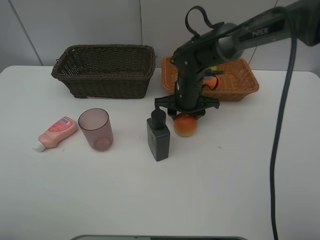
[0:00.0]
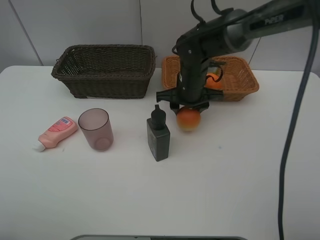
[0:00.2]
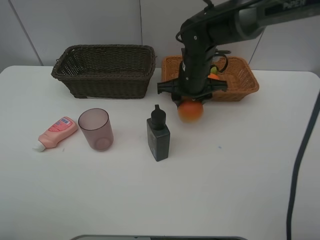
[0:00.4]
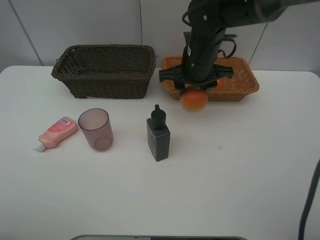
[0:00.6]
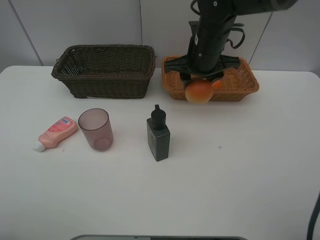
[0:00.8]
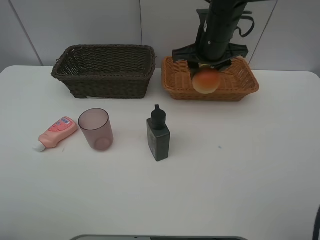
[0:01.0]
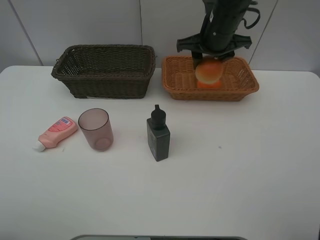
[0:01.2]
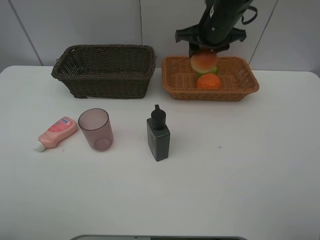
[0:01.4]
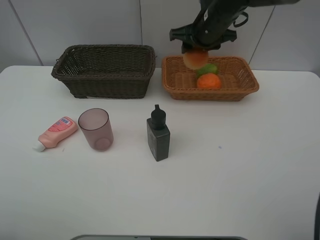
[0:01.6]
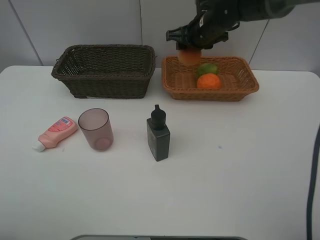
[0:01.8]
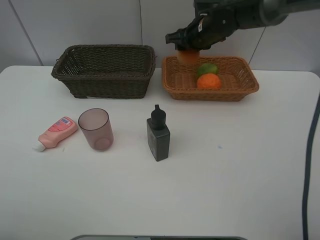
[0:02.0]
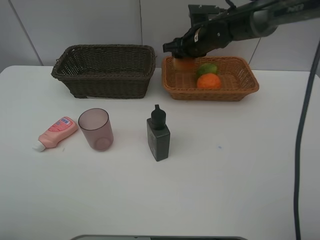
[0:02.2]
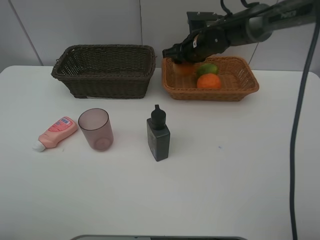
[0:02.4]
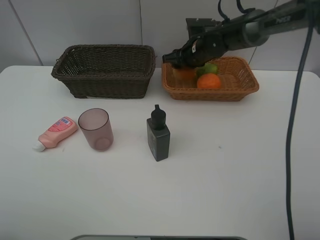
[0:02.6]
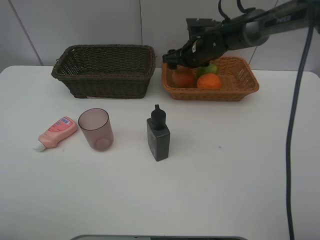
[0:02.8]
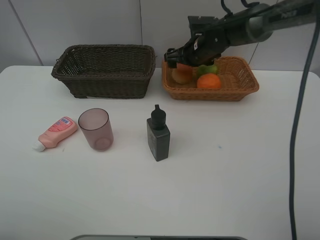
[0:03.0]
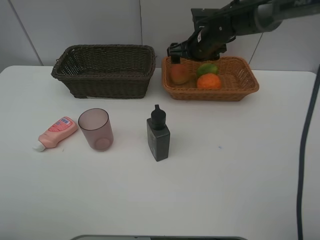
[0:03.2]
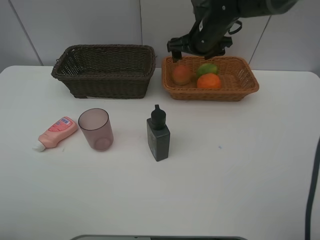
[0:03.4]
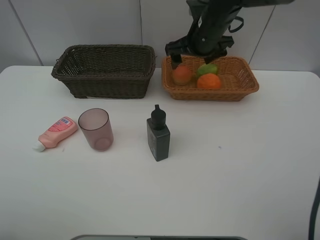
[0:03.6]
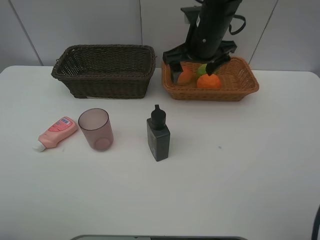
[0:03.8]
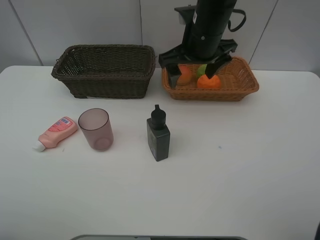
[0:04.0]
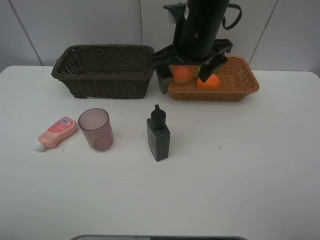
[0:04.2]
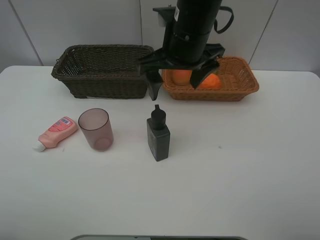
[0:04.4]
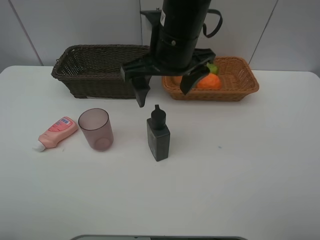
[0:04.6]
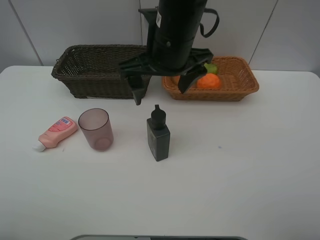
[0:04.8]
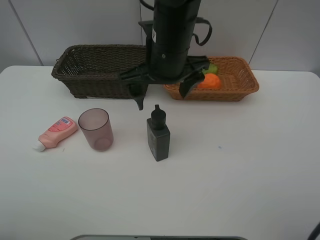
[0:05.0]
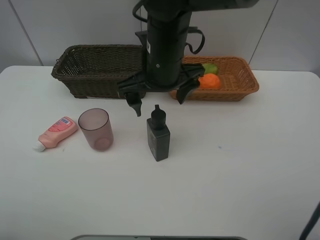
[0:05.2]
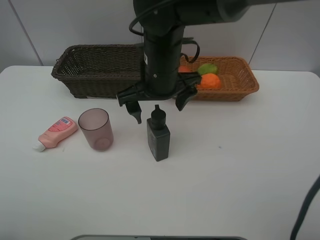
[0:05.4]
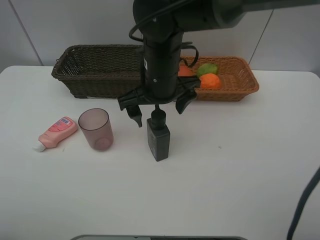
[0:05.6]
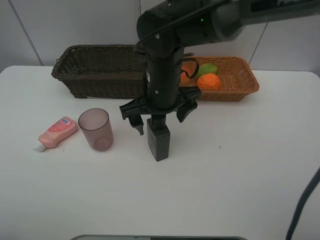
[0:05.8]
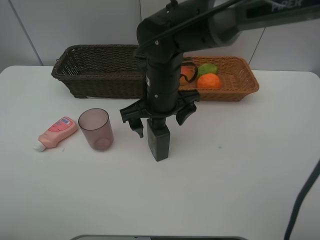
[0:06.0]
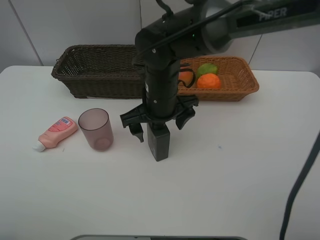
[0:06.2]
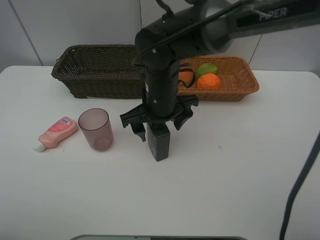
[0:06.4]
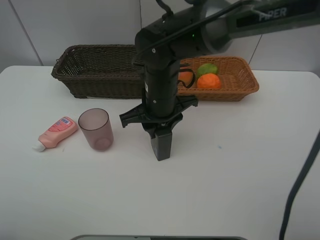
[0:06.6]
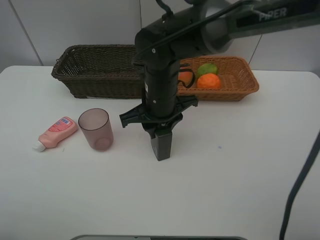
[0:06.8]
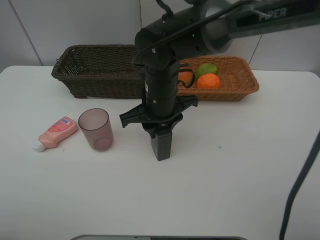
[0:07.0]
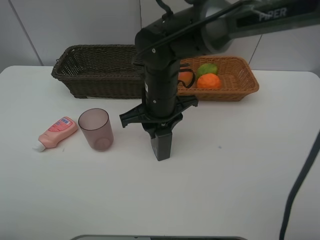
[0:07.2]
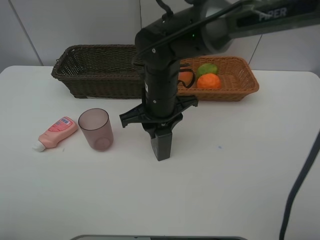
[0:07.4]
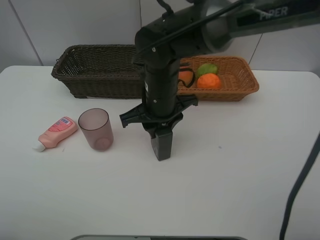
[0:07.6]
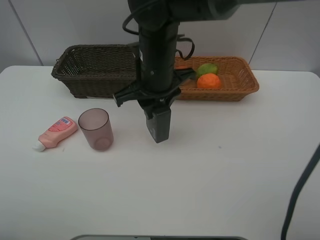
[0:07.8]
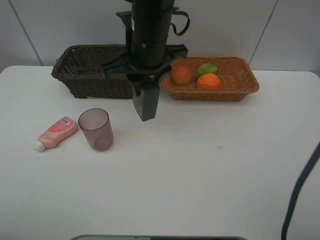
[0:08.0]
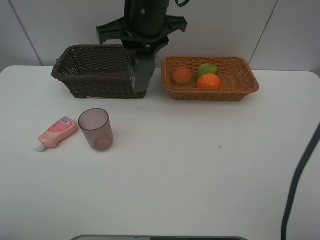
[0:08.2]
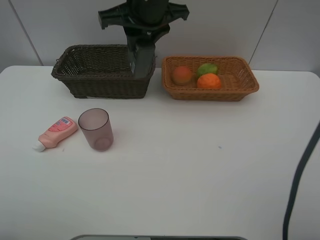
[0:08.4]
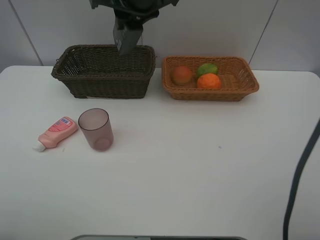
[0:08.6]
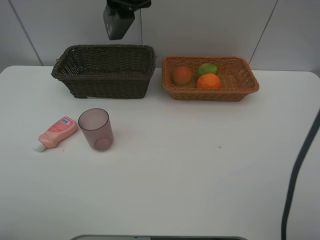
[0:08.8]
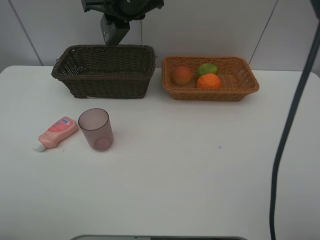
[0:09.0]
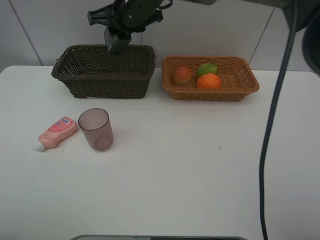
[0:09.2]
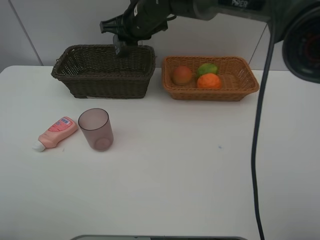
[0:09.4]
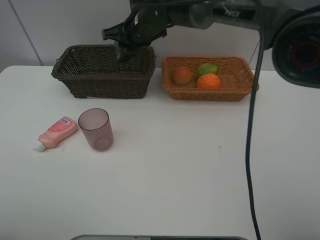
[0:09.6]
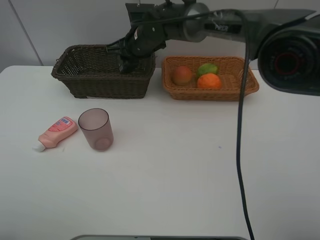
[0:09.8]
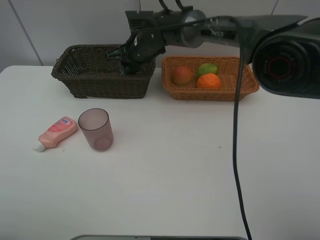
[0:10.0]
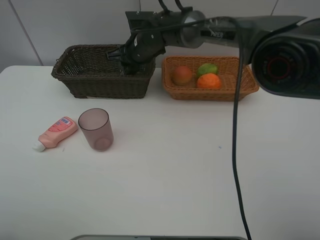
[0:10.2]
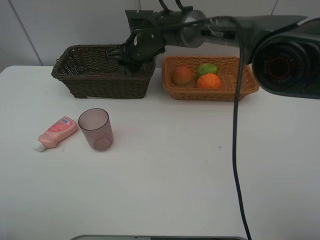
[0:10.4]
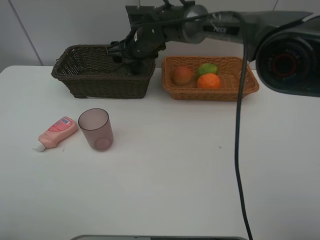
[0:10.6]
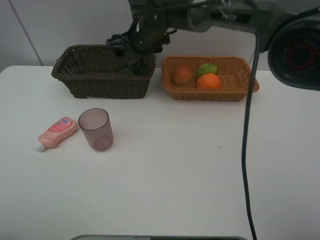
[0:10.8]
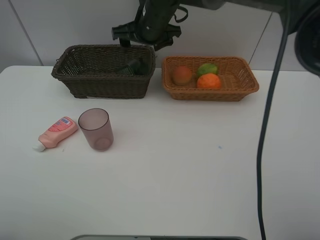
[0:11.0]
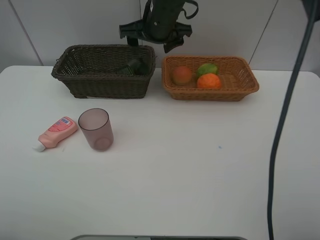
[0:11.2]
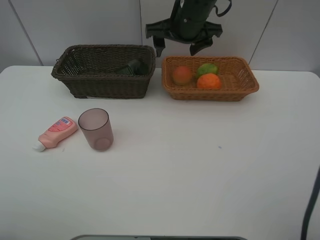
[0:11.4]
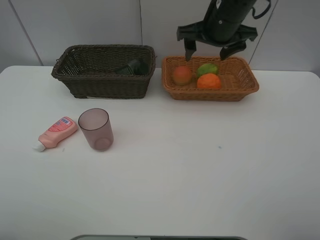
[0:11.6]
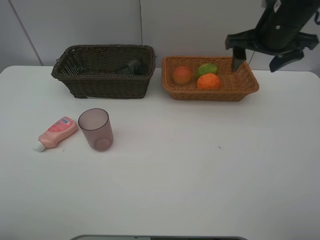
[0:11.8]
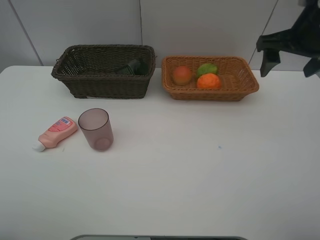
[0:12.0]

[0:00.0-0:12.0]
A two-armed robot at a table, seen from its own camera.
Task of the whole recording: place multiple objects separately in different baskets.
0:00.0 to 0:01.6: The right gripper moves upward and forward, some 15 cm.
0:01.6 to 0:03.0: The right gripper moves downward, some 5 cm, and opens.
0:03.0 to 0:04.4: The right gripper moves backward, upward and to the left, approximately 20 cm.
0:04.4 to 0:06.0: The right gripper heads downward, covering about 10 cm.
0:06.0 to 0:07.6: The right gripper closes up.
0:07.6 to 0:09.0: The right gripper travels upward and forward by about 15 cm.
0:09.0 to 0:10.4: The right gripper is displaced downward and forward by roughly 15 cm, and opens up.
0:10.4 to 0:12.0: The right gripper heads to the right, backward and upward, covering approximately 35 cm, and opens.

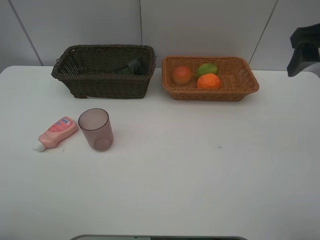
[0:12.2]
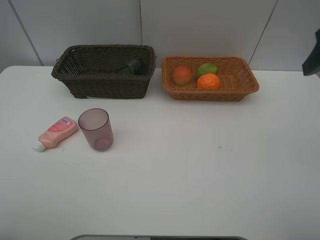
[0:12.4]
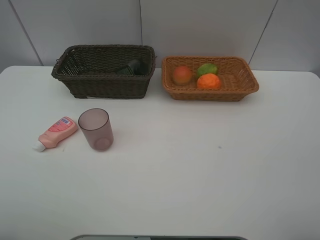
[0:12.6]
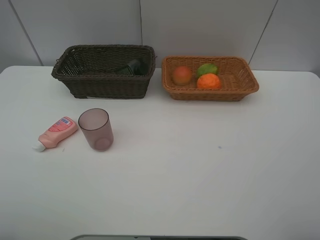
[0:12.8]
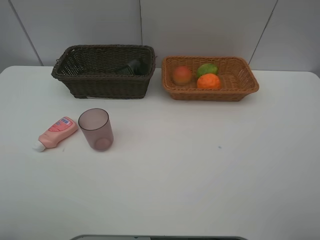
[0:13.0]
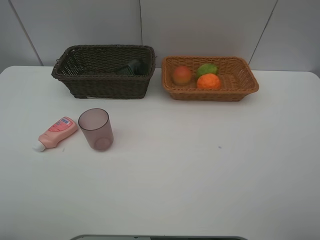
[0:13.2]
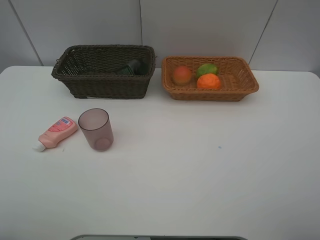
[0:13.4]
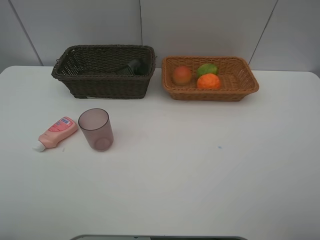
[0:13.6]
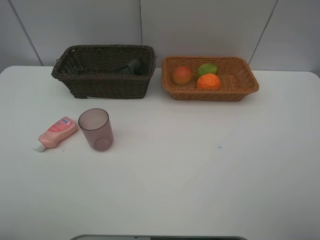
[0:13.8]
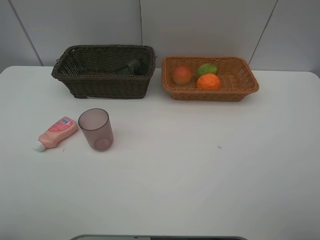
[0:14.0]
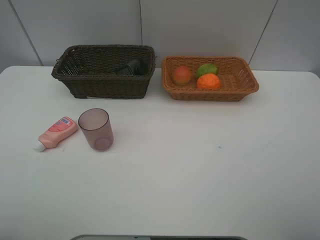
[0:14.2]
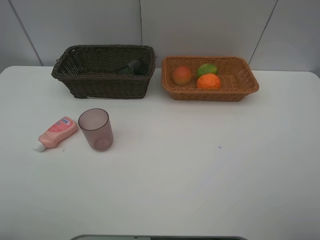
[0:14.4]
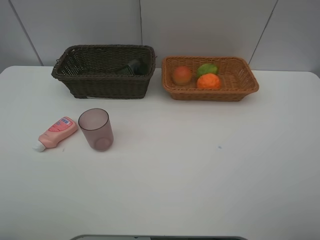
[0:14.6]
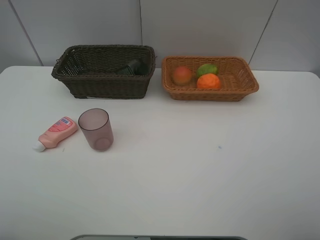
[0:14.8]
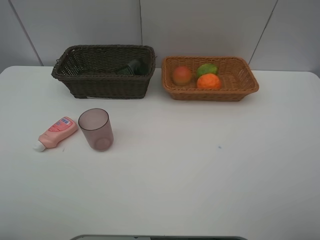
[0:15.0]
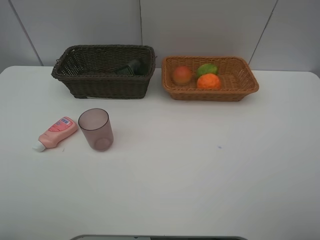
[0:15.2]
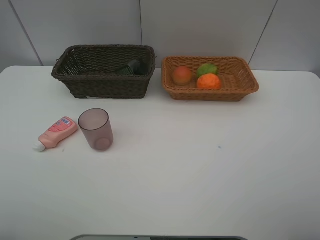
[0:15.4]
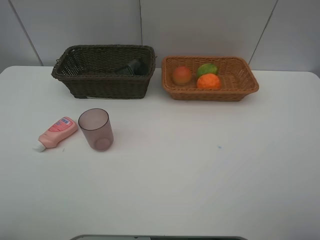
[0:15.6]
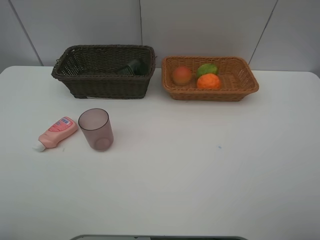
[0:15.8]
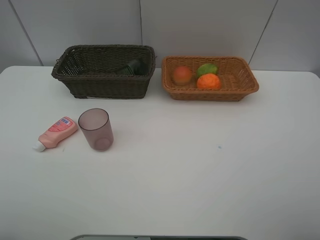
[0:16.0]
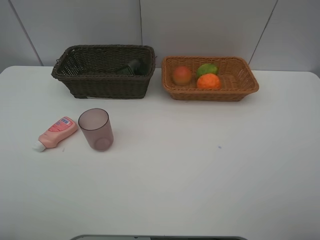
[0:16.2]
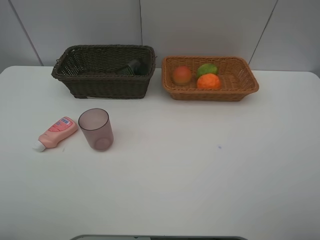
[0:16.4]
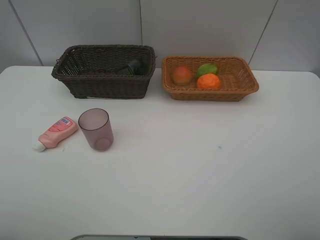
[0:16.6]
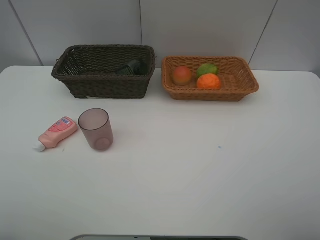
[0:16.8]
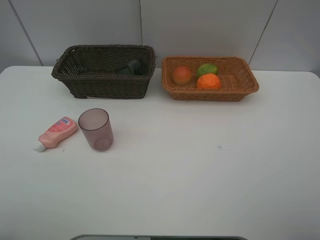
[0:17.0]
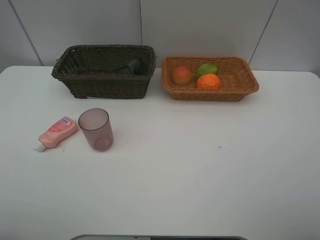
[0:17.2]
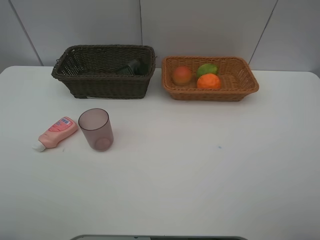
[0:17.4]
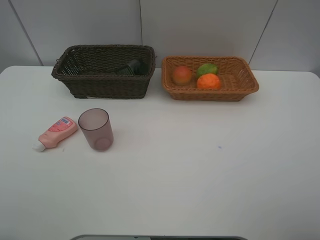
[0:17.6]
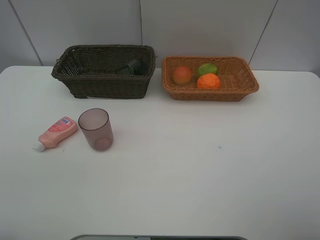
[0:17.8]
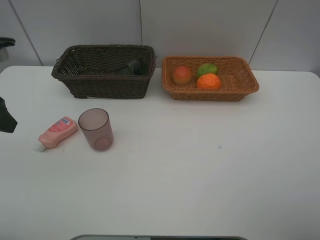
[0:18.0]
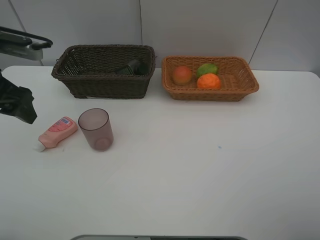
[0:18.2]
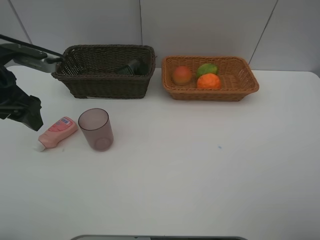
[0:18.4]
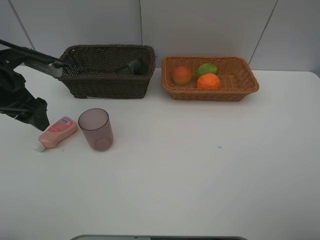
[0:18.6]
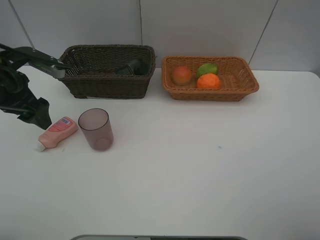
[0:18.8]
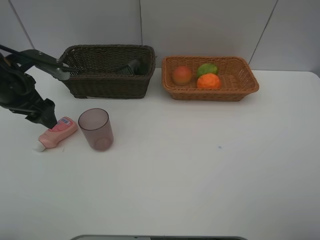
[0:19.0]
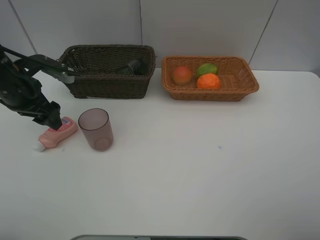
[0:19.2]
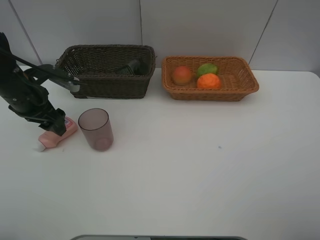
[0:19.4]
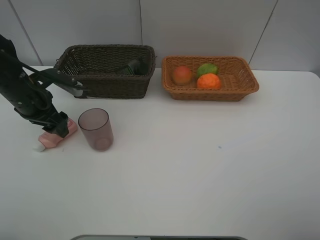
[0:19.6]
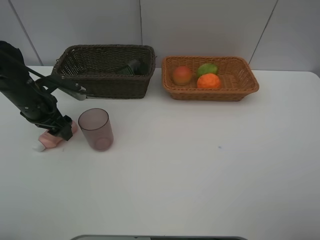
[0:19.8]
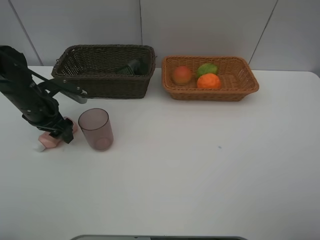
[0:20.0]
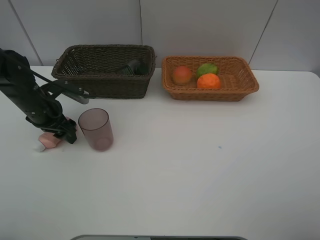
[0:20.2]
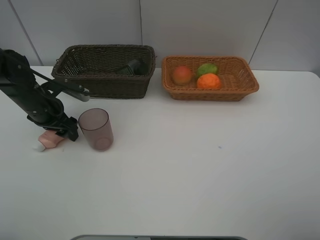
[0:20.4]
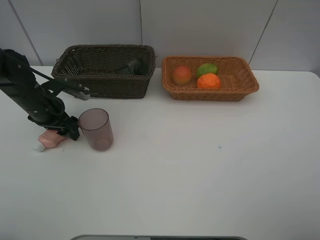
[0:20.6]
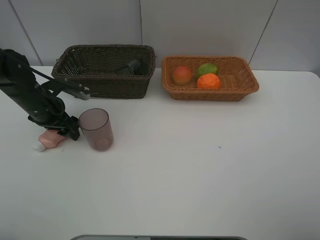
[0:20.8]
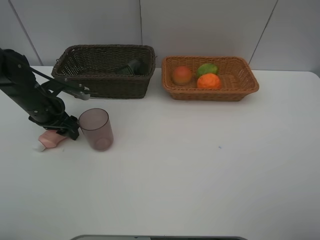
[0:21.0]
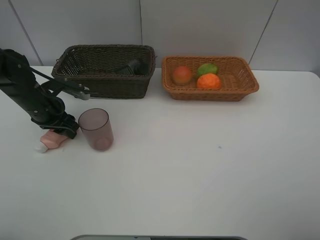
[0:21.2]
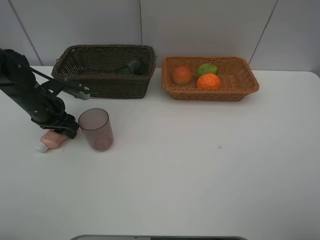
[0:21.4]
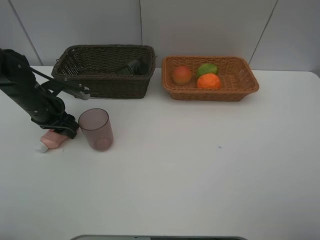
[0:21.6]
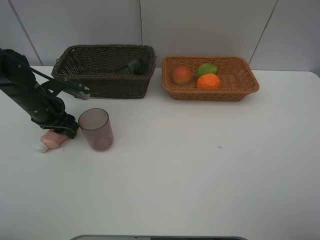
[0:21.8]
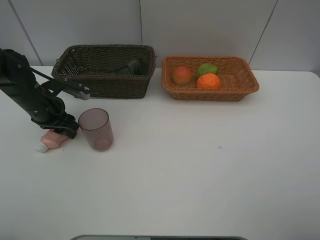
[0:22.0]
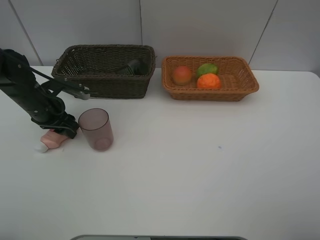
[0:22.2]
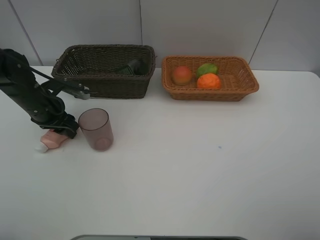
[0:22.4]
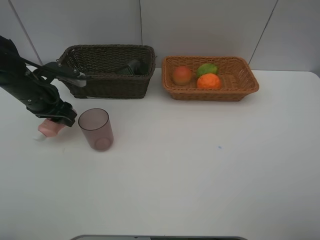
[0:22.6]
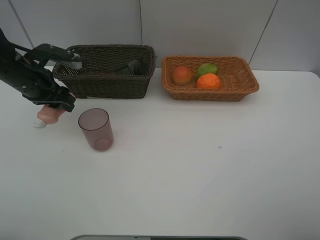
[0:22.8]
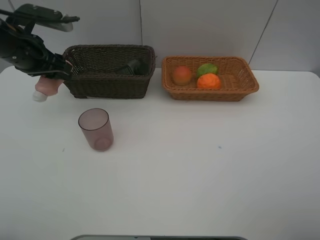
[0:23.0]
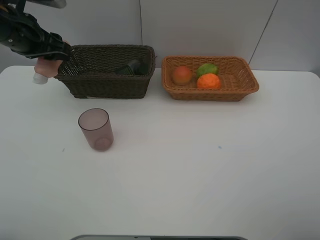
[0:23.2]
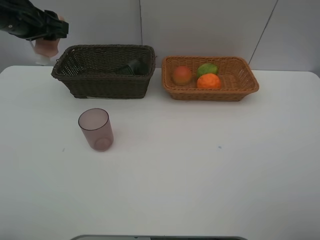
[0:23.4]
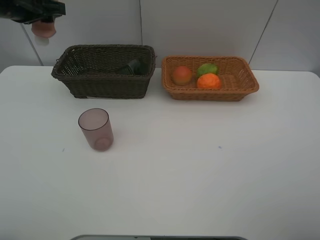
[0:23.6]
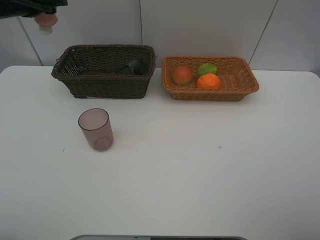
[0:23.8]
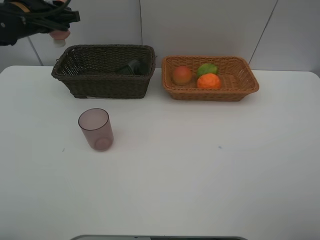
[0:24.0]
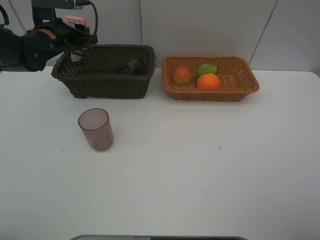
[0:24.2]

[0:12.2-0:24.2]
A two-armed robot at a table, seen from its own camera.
Task of the whole recording: place multiple objects separately in different baskets.
0:12.2 to 0:13.8: The right gripper travels backward by about 20 cm.
0:15.2 to 0:16.6: Both grippers stay put.
0:16.6 to 0:18.2: The left gripper is displaced forward by approximately 25 cm.
0:18.2 to 0:19.8: The left gripper heads downward and forward, covering roughly 15 cm.
0:19.8 to 0:22.6: The grippers make only small movements.
0:22.6 to 0:24.2: The left gripper goes some 10 cm forward, and reaches about 15 cm upward, then returns.
